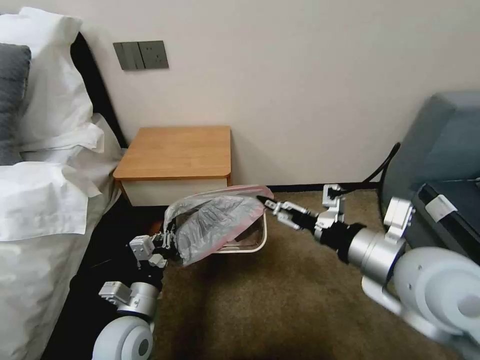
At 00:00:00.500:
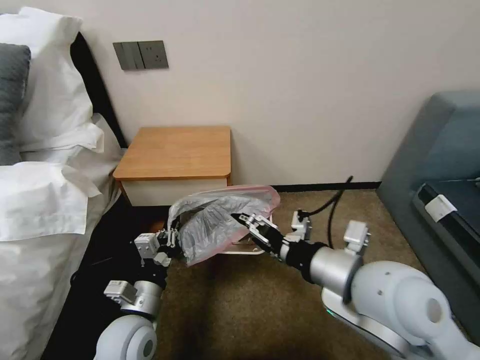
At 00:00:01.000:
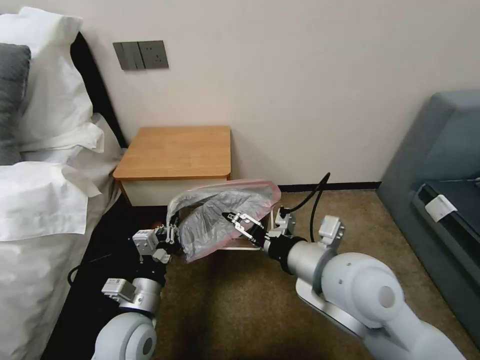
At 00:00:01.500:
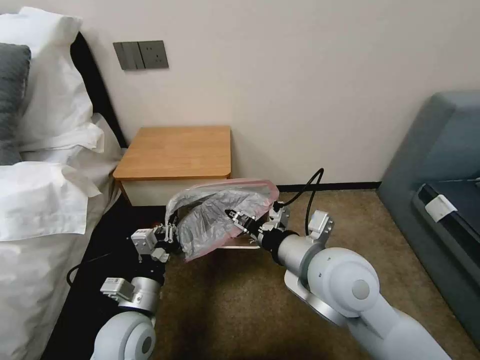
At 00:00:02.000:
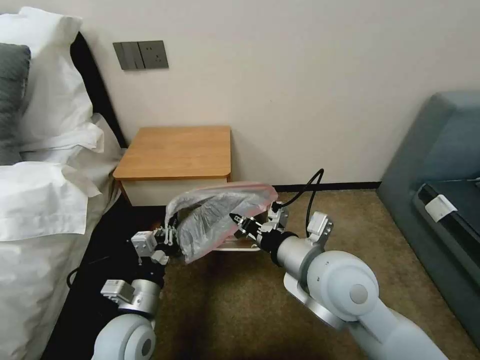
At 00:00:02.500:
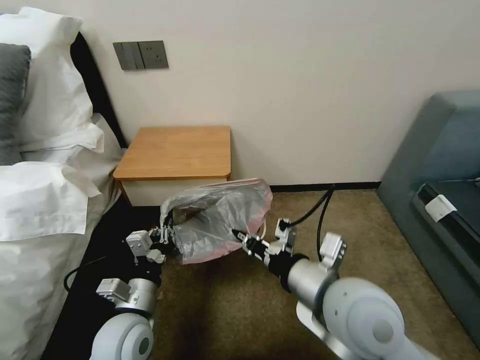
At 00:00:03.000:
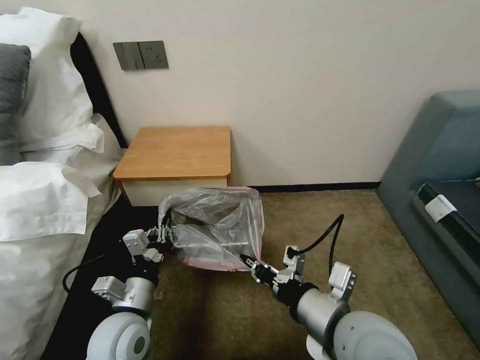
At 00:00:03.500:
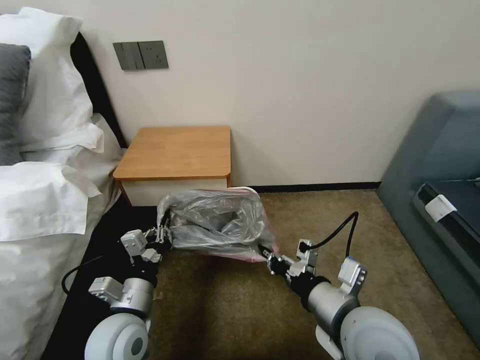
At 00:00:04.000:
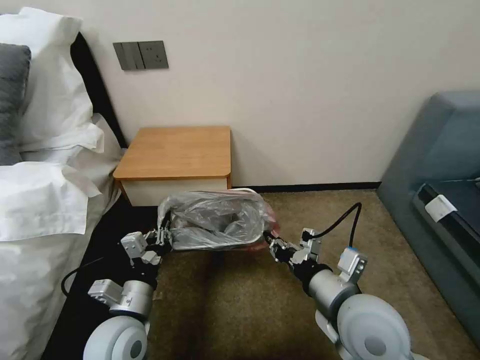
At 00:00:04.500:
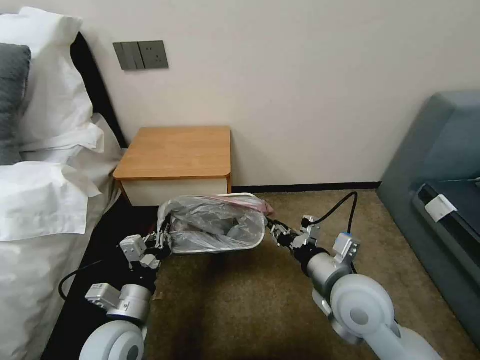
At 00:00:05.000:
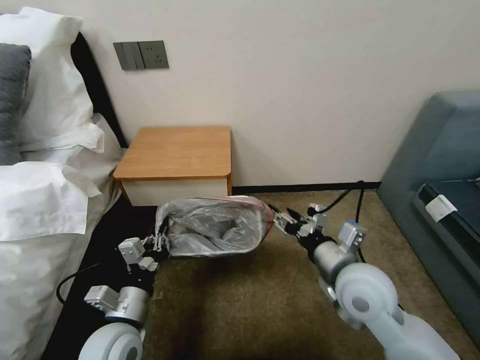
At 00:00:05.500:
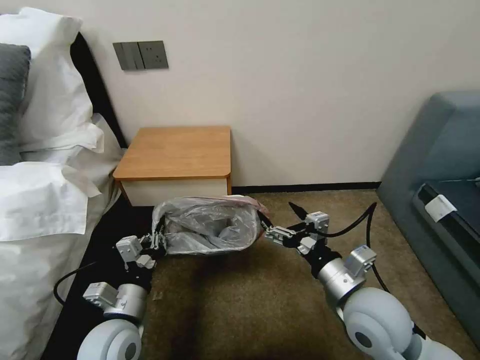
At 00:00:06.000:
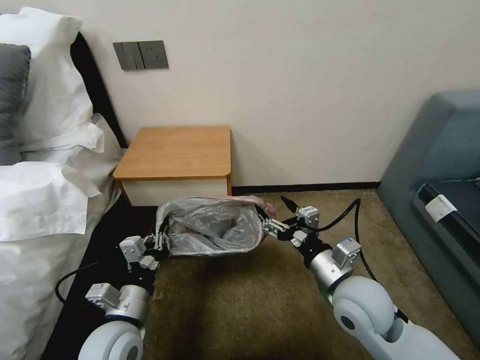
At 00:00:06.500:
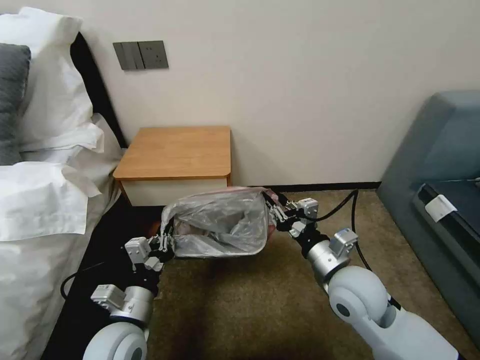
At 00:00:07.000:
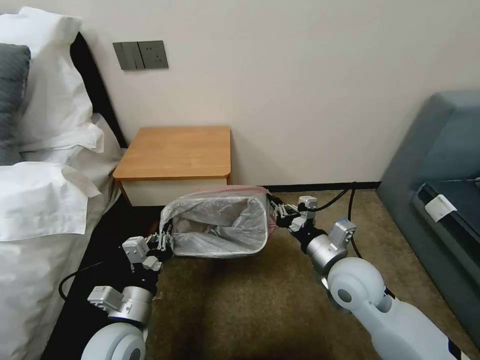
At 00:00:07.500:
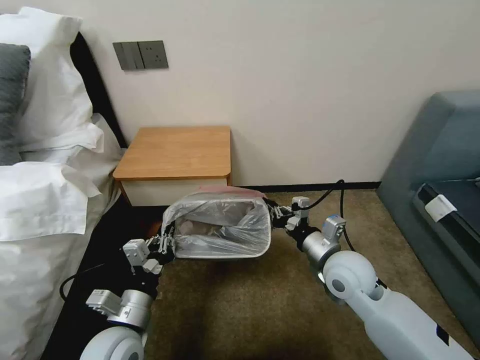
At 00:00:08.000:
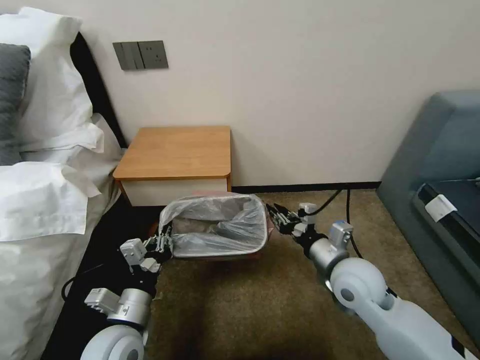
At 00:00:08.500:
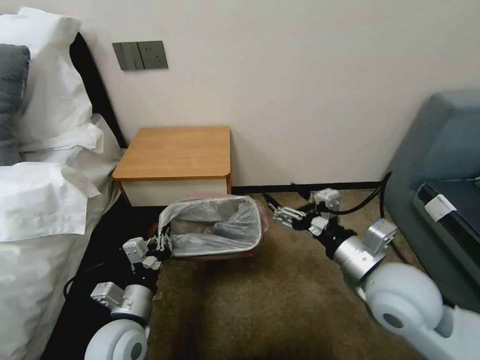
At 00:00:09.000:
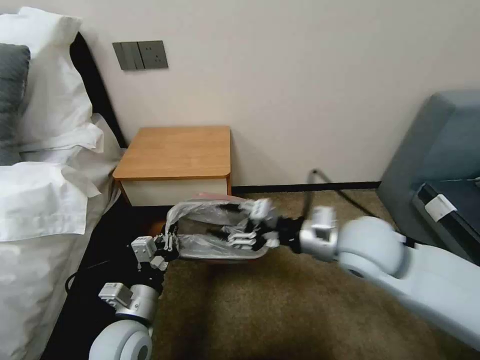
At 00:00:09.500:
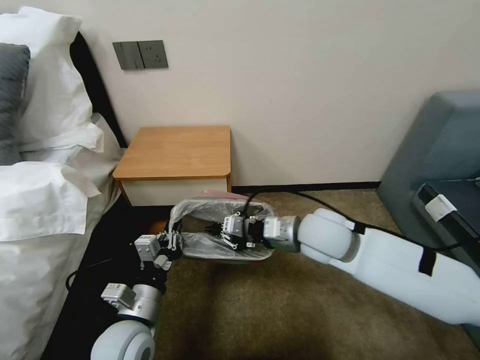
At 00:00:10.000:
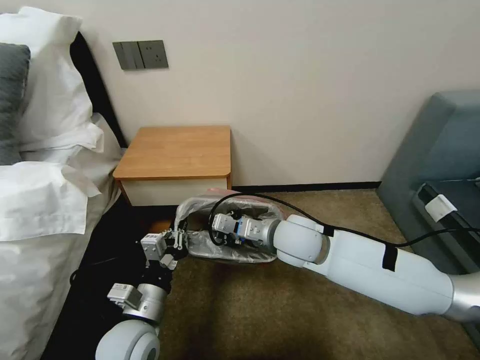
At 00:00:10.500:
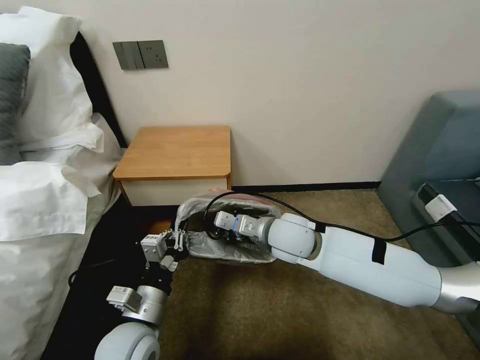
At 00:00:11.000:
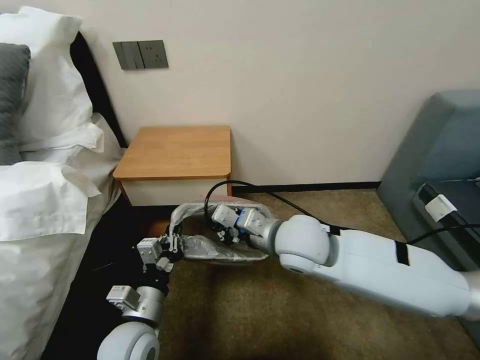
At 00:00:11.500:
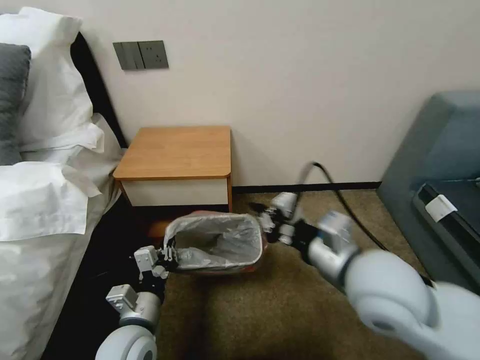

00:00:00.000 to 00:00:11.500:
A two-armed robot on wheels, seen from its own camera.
Task of the whole recording: Pick up the garbage bag from the table and place it over the trash can.
00:00:00.000 to 00:00:02.000: The right gripper is displaced to the left and downward by about 10 cm, and closes its fingers.
00:00:02.000 to 00:00:04.000: The right gripper heads downward, covering about 5 cm.
00:00:04.000 to 00:00:06.000: The right gripper changes place by about 5 cm, and opens.
00:00:06.000 to 00:00:07.500: The right gripper goes approximately 5 cm forward, and closes up.
00:00:07.500 to 00:00:09.500: The right gripper goes about 10 cm upward and to the left, and opens, then closes again.
00:00:09.500 to 00:00:11.500: The right gripper shifts approximately 10 cm backward.

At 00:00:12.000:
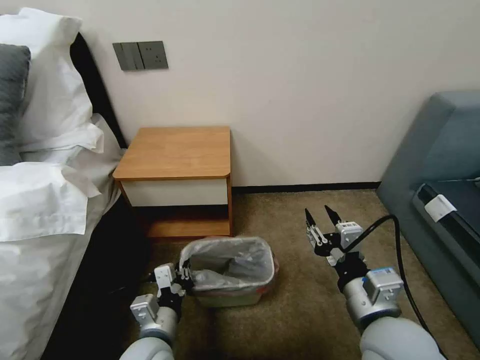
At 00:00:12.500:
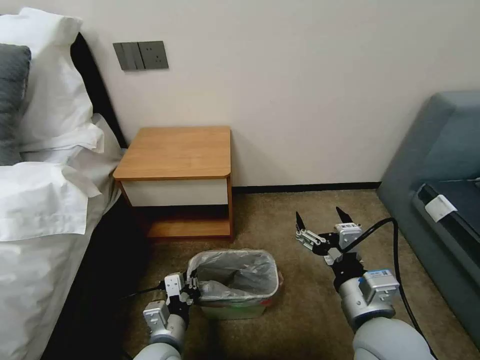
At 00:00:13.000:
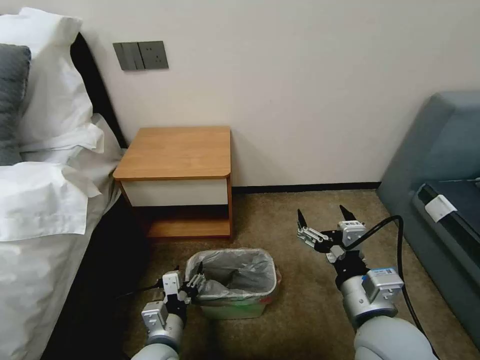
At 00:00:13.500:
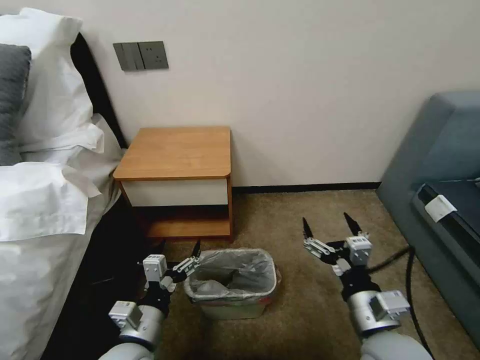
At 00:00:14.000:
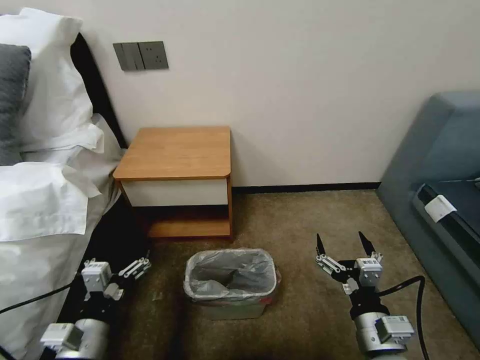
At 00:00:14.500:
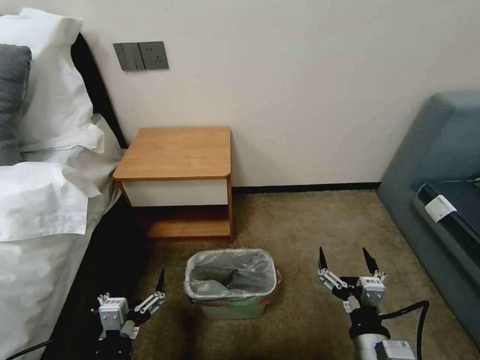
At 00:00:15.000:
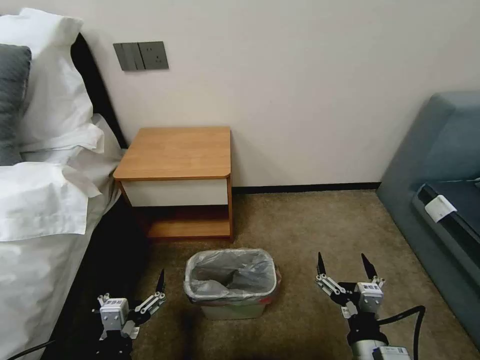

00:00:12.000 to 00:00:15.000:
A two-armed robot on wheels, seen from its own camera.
Task of the whole recording: Pick up the garbage bag from the table and place it over the trash can.
00:00:12.000 to 00:00:13.500: The right gripper opens up, while the left gripper opens its fingers.
00:00:13.500 to 00:00:15.000: The right gripper heads backward and downward, covering about 10 cm; the left gripper moves backward, approximately 10 cm.
